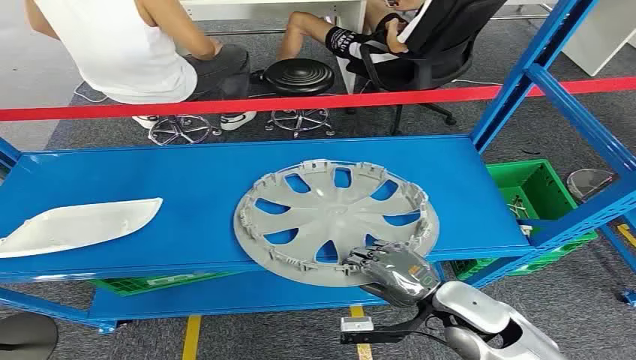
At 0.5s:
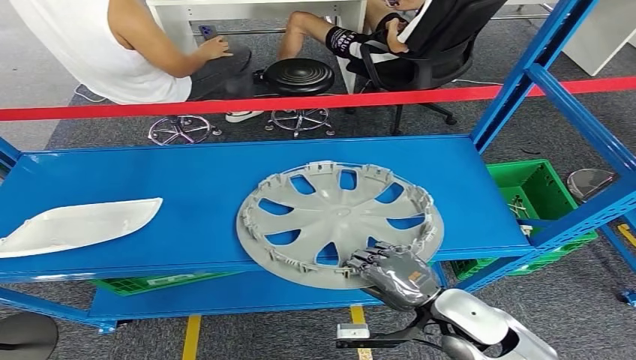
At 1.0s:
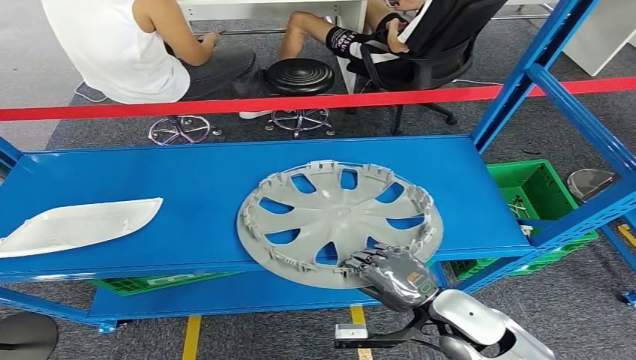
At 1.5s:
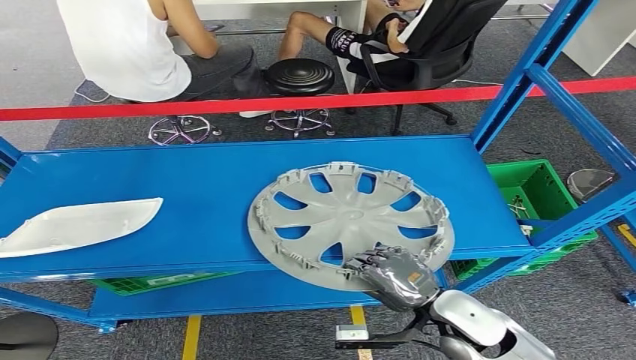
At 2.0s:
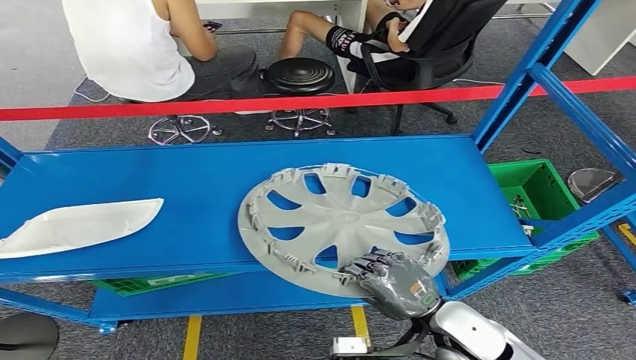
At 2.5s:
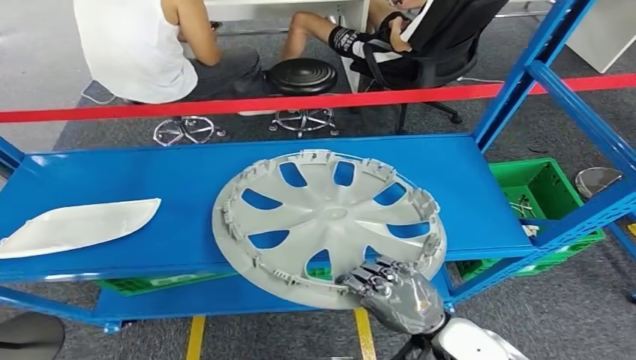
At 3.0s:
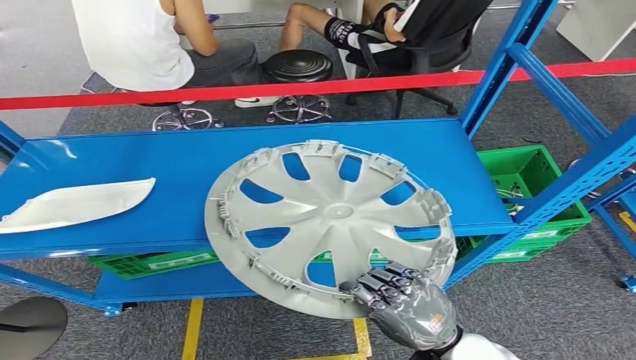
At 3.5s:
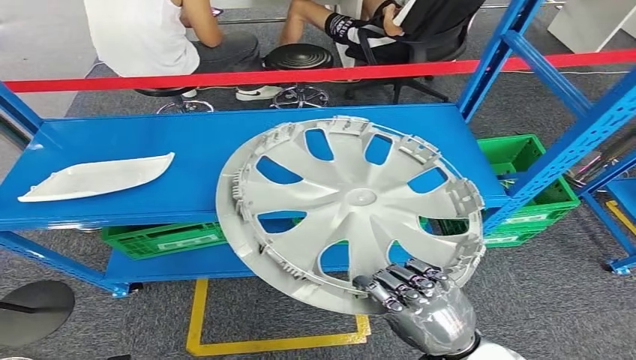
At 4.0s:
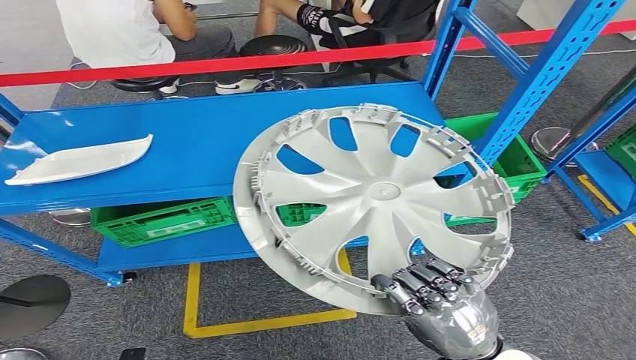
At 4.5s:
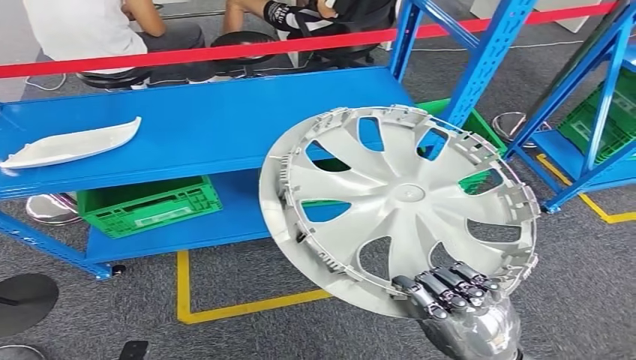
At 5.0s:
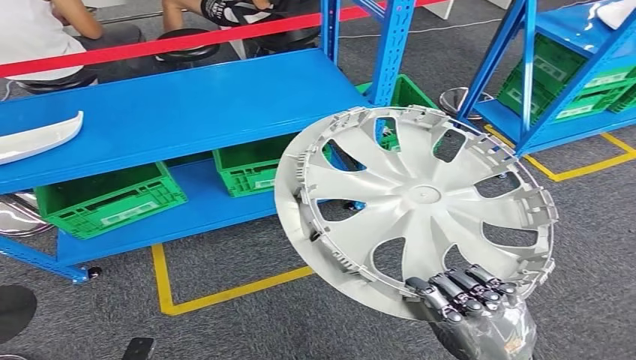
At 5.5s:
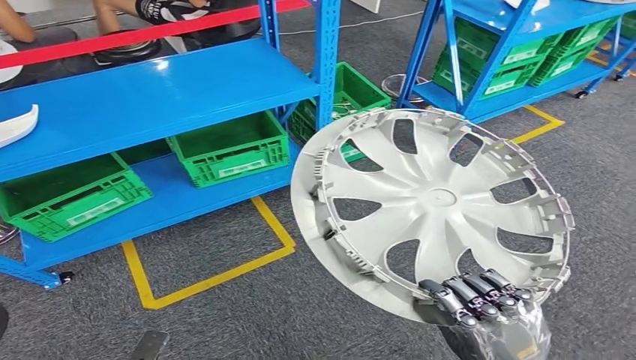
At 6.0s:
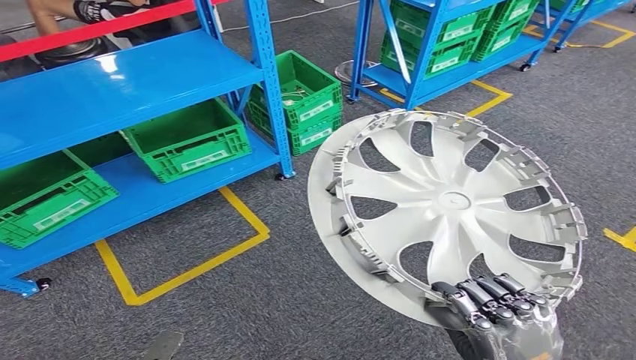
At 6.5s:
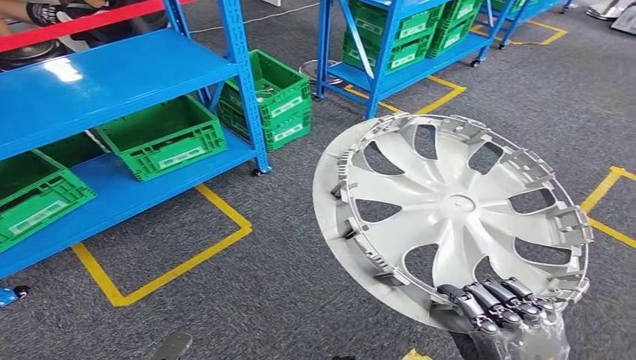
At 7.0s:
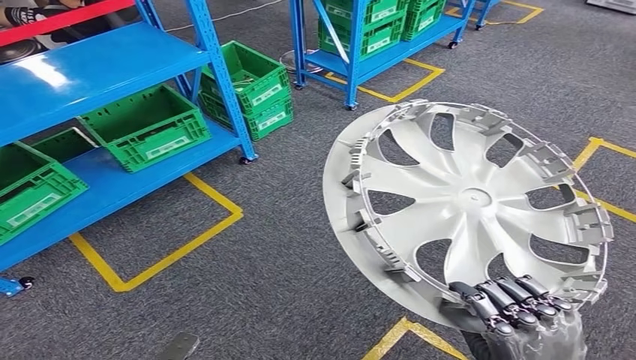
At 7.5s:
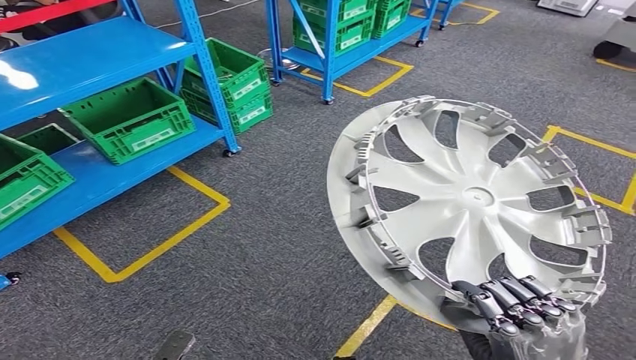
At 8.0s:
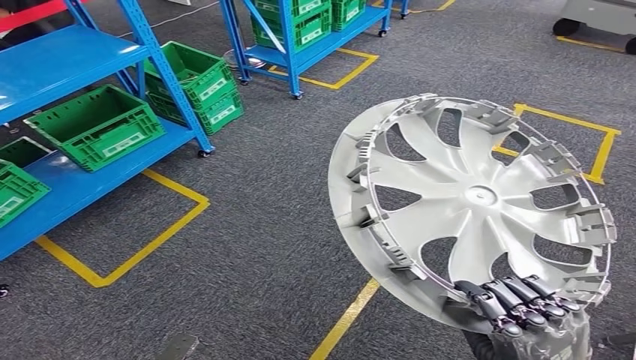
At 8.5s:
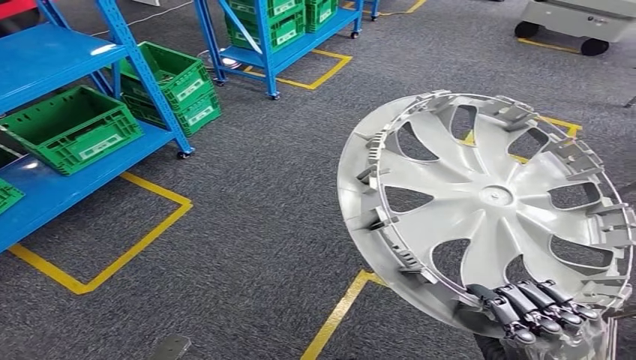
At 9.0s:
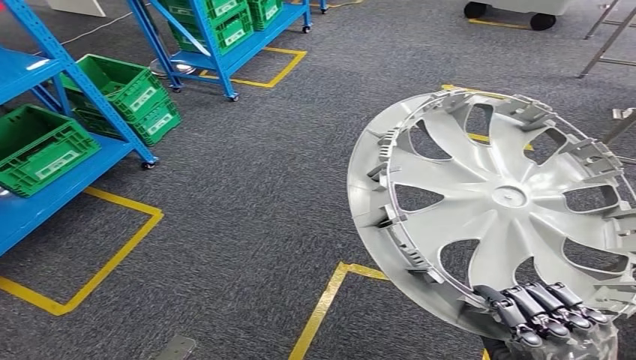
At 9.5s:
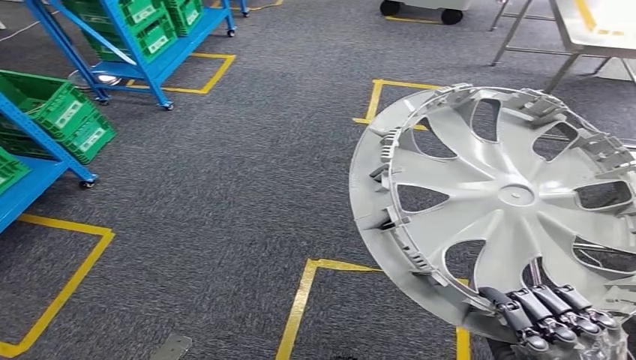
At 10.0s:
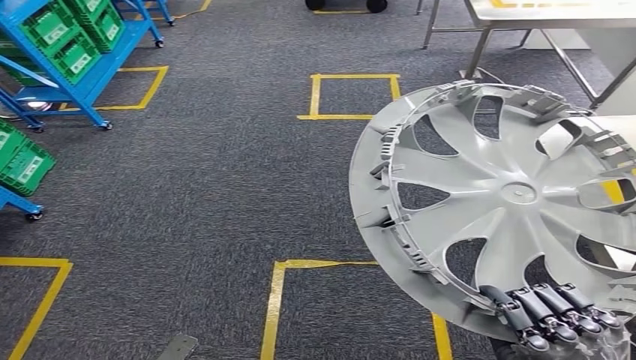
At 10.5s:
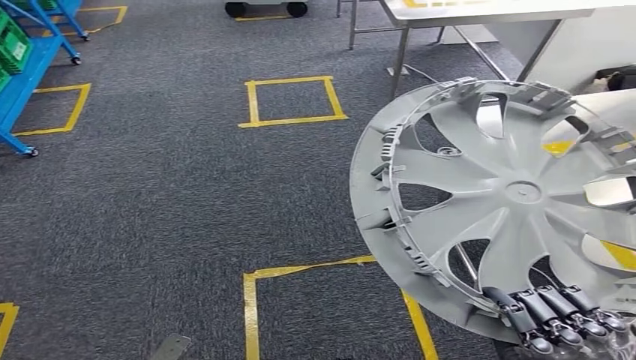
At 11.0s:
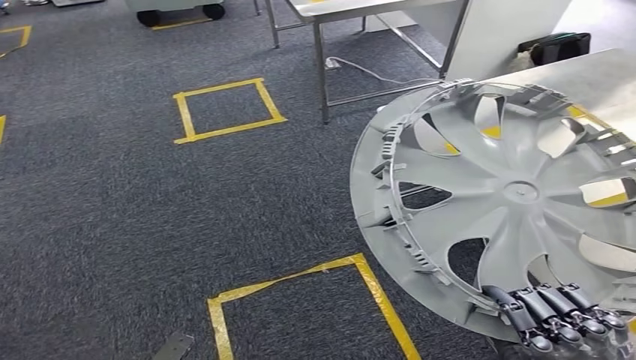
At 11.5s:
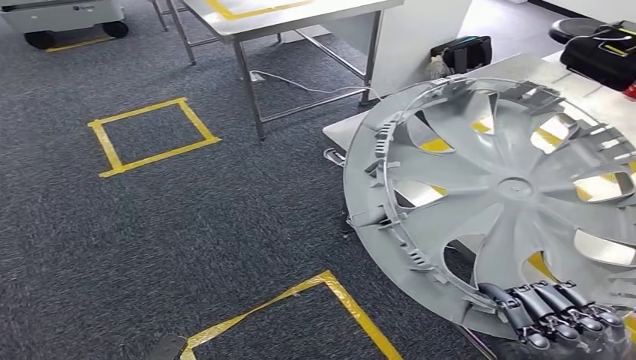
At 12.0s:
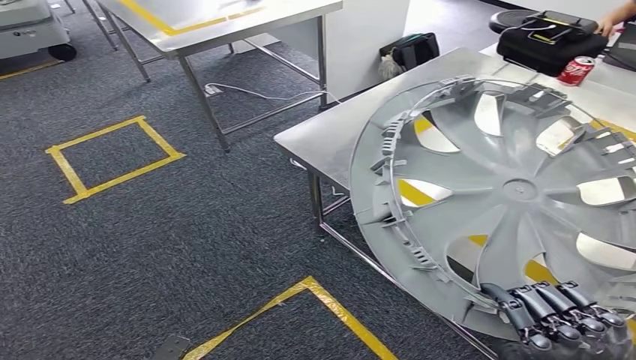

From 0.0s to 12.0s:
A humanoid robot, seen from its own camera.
Step, from 0.0s to 4.0s: Pick up the small component from the shelf.

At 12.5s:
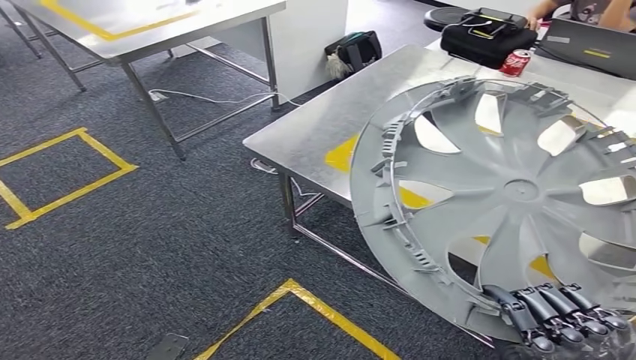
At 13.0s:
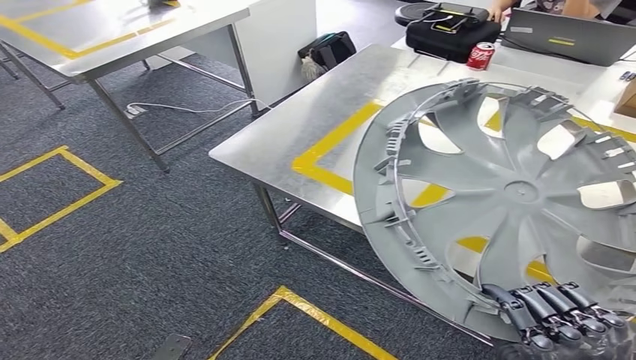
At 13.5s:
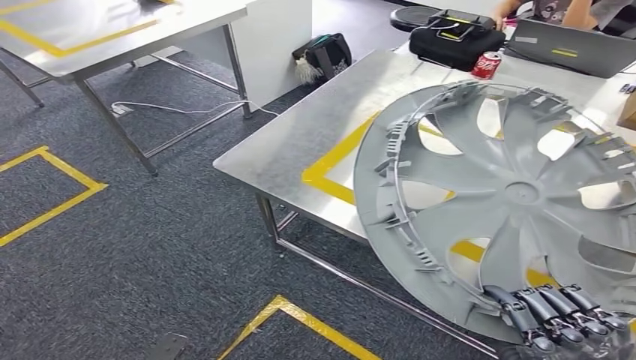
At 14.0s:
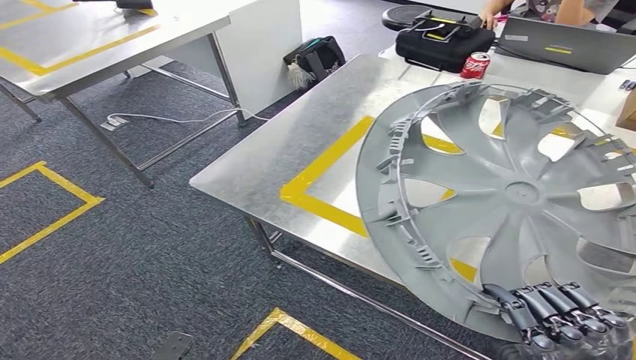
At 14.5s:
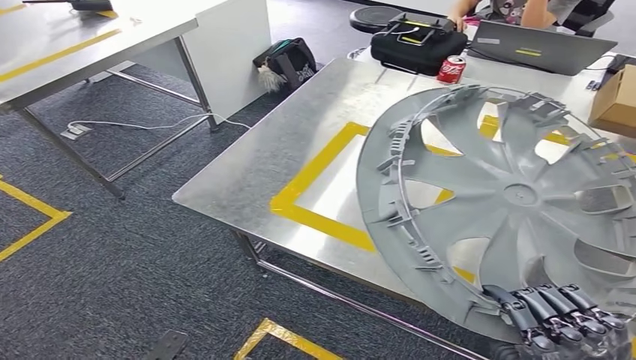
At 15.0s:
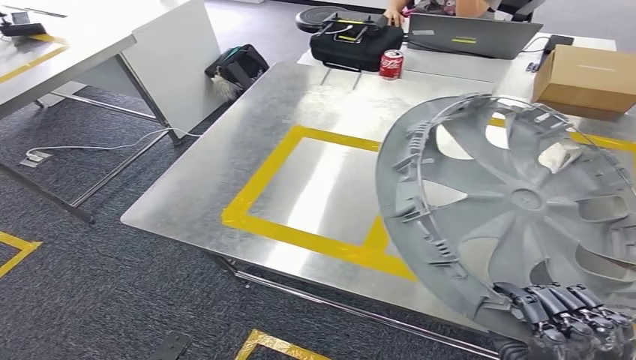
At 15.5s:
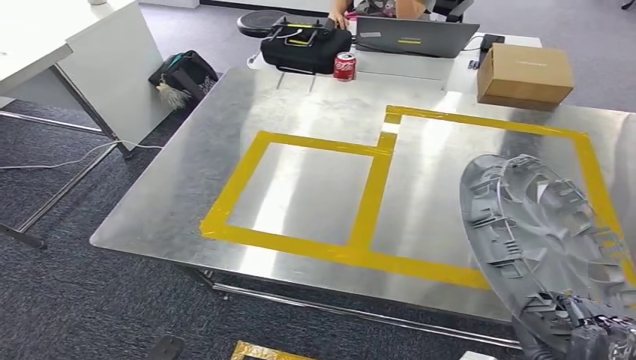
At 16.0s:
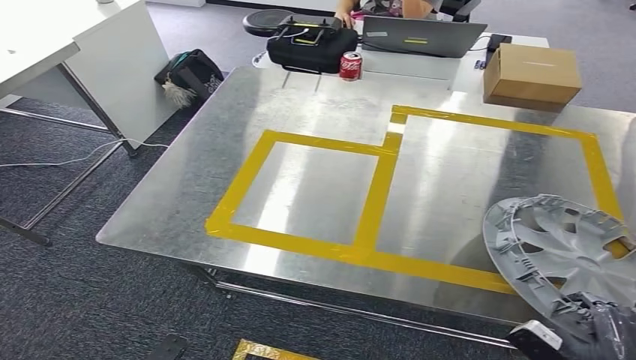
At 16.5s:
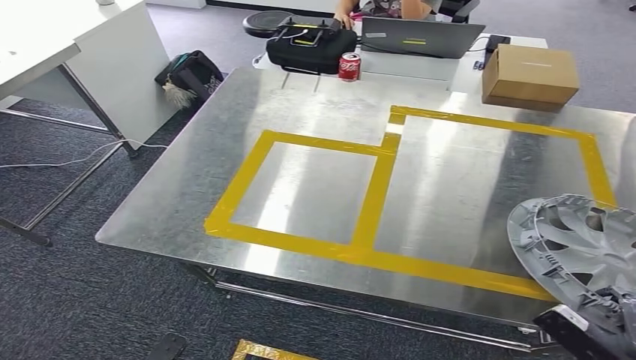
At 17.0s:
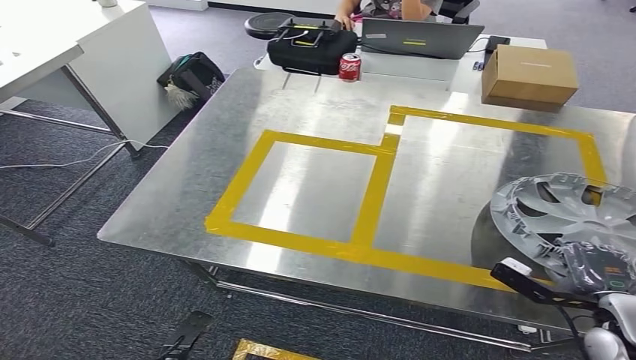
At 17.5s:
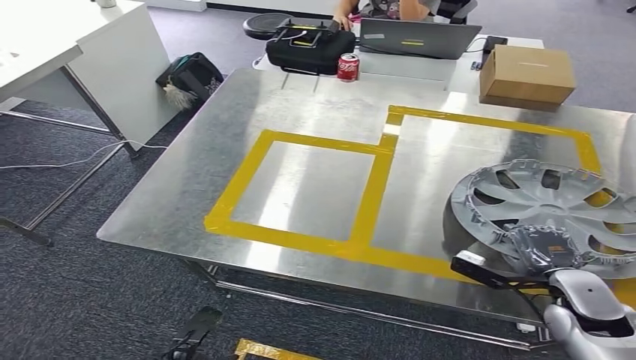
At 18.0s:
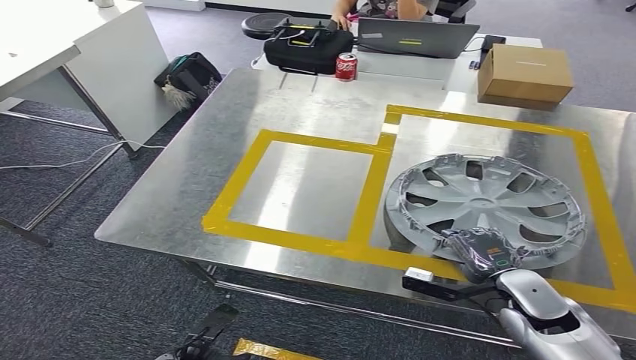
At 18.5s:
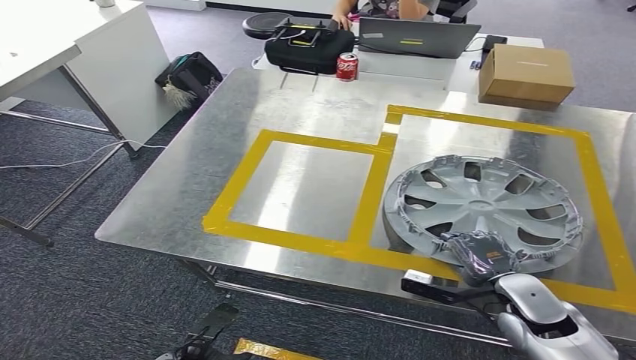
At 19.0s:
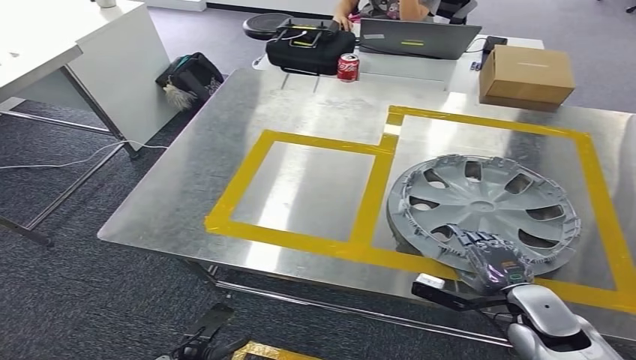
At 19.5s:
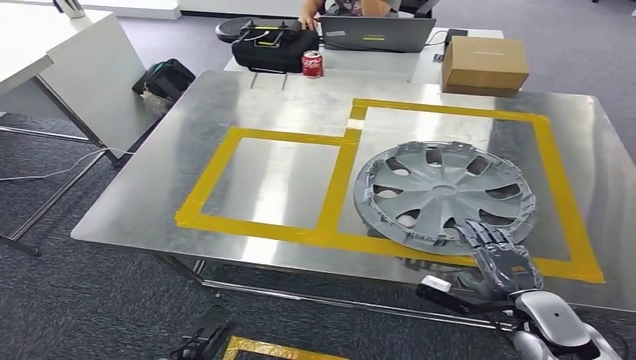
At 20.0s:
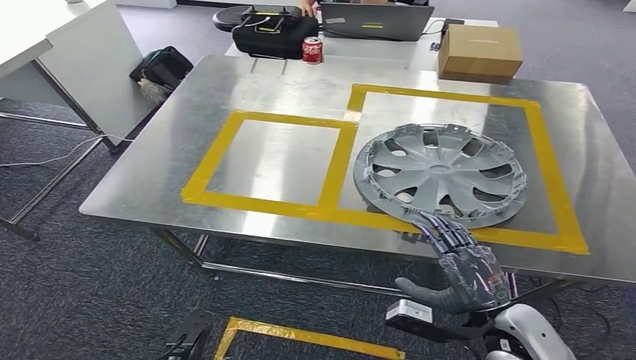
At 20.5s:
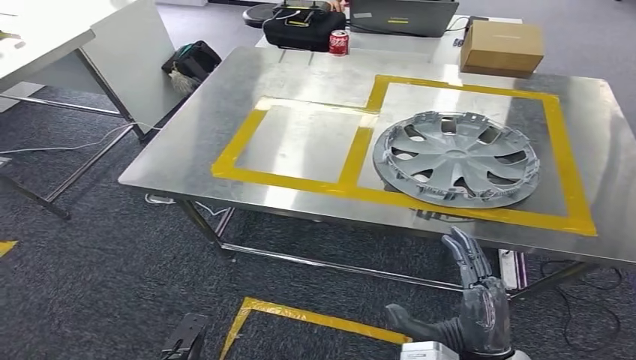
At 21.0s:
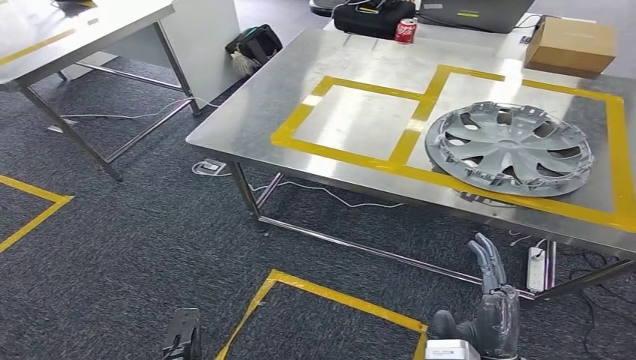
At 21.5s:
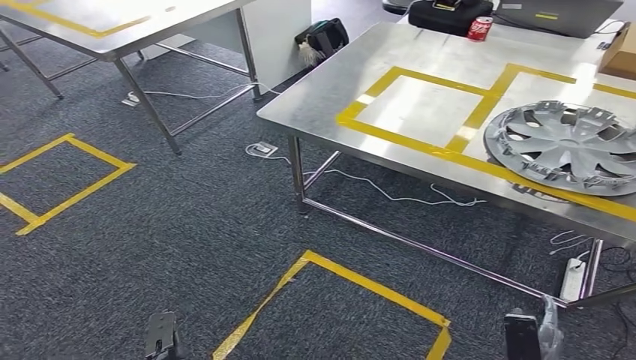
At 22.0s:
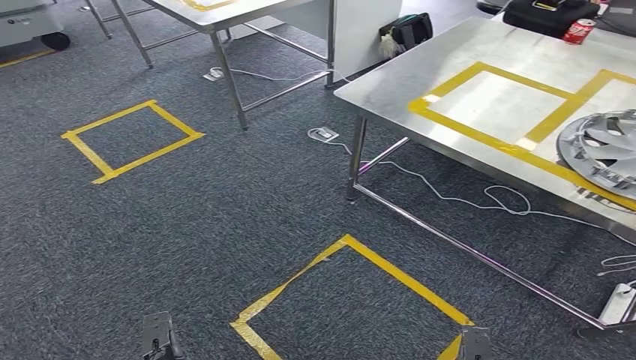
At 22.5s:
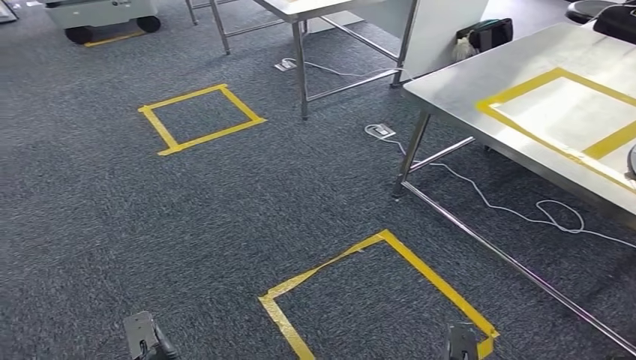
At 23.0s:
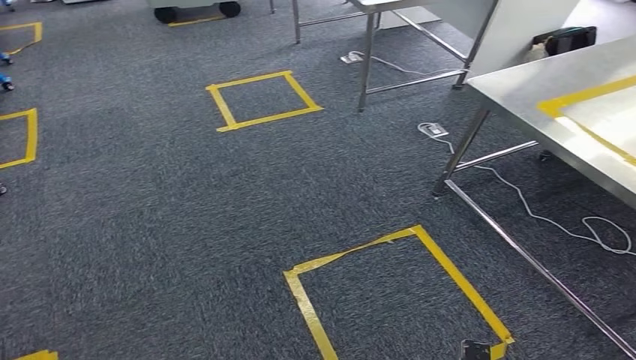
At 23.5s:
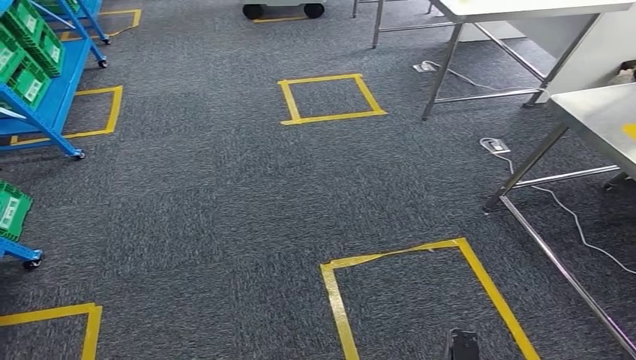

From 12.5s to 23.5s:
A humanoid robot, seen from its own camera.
Step, from 14.5s to 21.0s: Insert the small component into the corresponding slot on the workbench.
From 16.0s to 18.0s: The right hand shifts some 15 cm forward; the left hand travels forward and to the right by about 10 cm.
